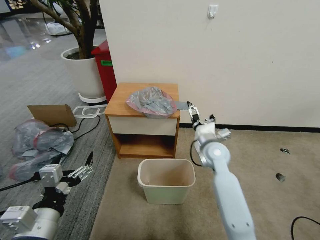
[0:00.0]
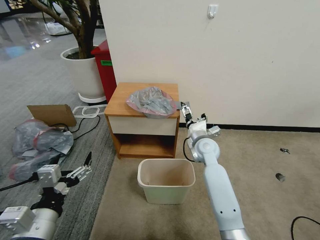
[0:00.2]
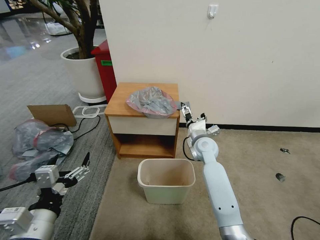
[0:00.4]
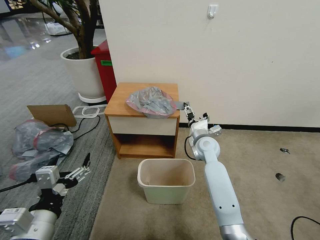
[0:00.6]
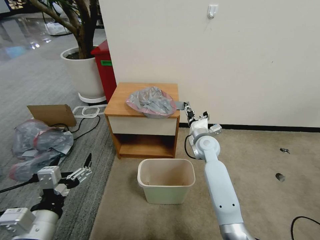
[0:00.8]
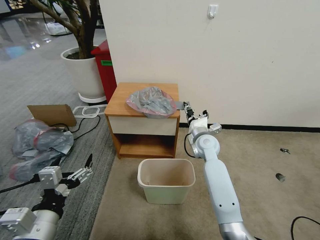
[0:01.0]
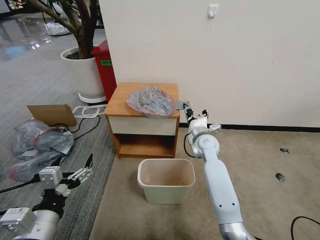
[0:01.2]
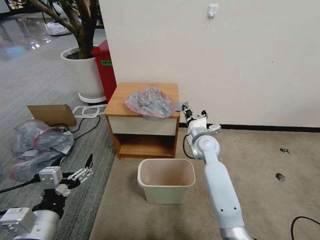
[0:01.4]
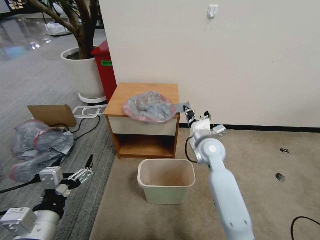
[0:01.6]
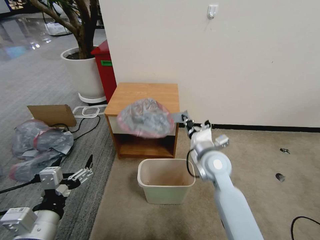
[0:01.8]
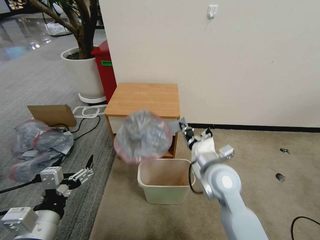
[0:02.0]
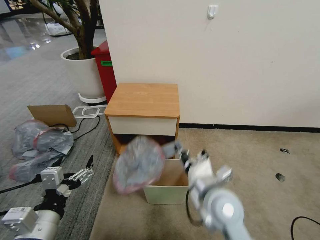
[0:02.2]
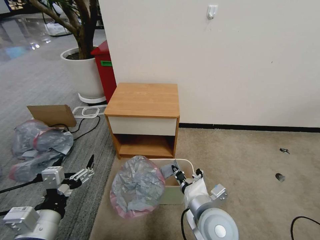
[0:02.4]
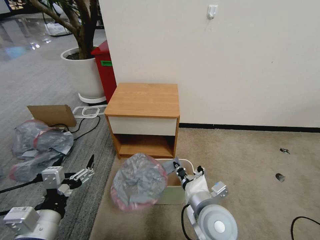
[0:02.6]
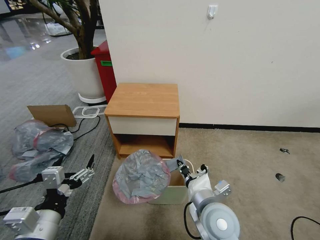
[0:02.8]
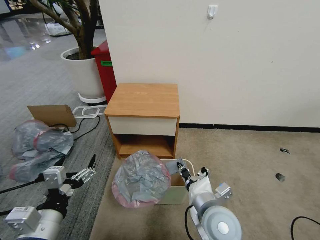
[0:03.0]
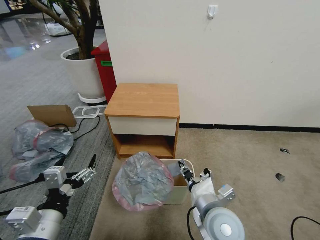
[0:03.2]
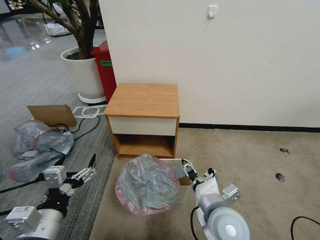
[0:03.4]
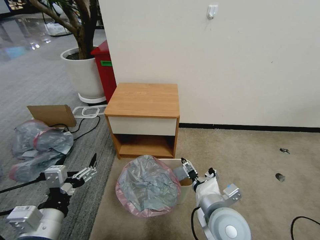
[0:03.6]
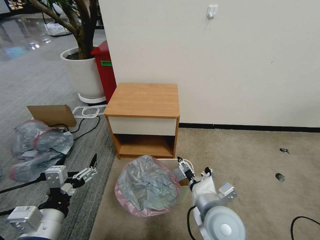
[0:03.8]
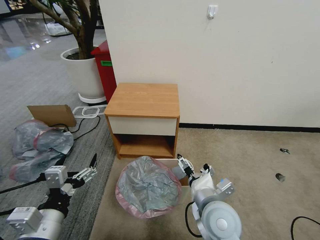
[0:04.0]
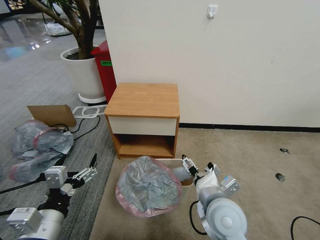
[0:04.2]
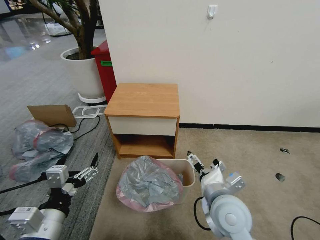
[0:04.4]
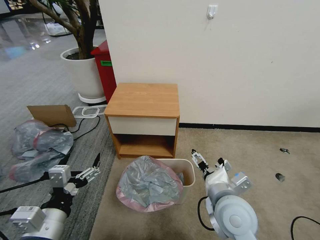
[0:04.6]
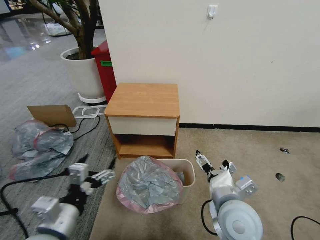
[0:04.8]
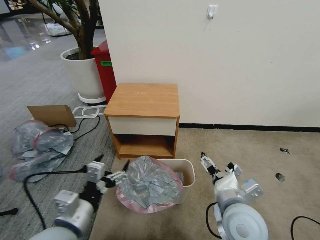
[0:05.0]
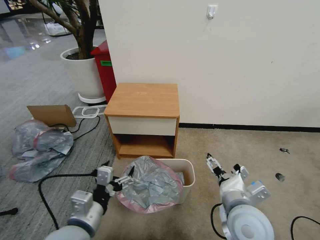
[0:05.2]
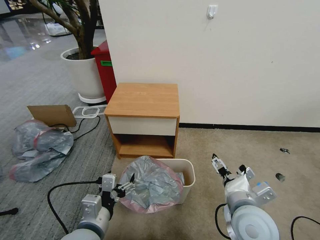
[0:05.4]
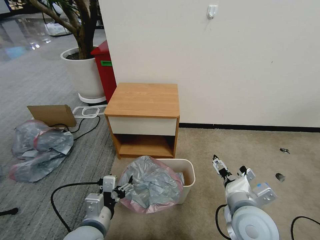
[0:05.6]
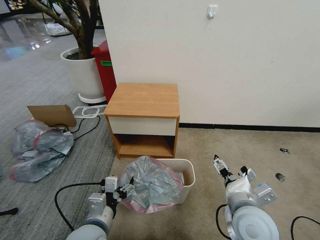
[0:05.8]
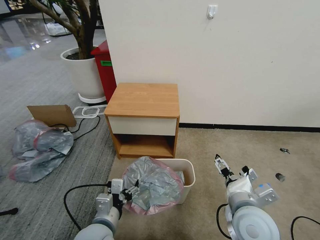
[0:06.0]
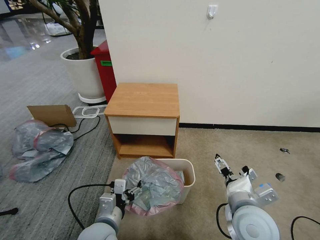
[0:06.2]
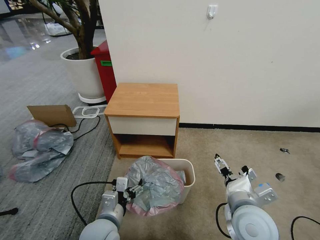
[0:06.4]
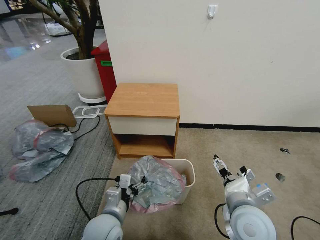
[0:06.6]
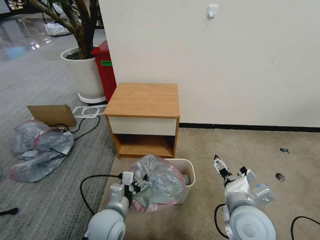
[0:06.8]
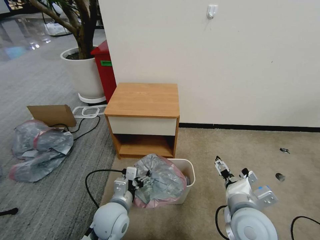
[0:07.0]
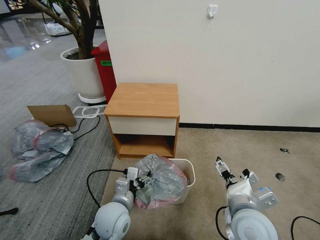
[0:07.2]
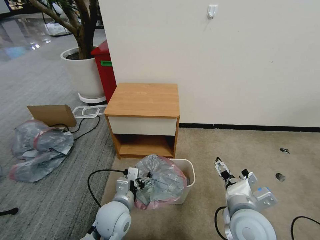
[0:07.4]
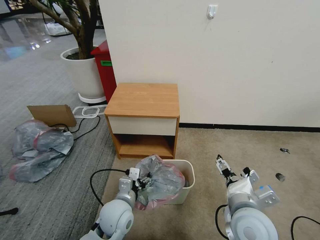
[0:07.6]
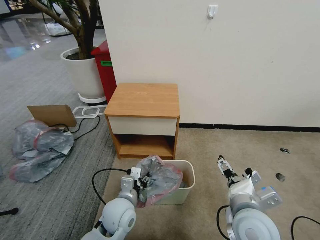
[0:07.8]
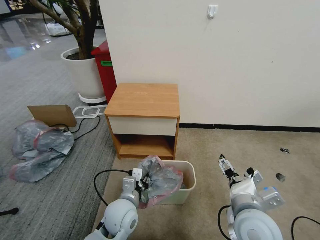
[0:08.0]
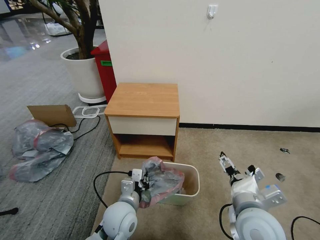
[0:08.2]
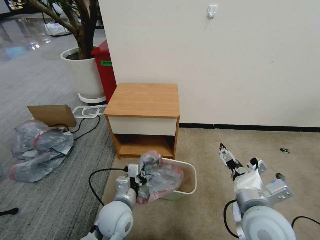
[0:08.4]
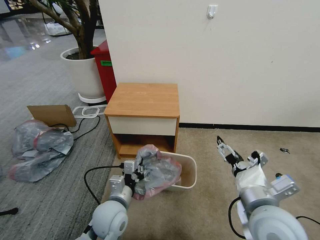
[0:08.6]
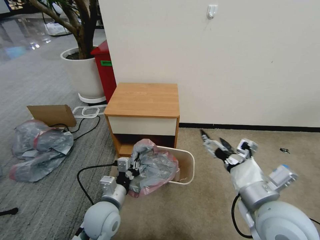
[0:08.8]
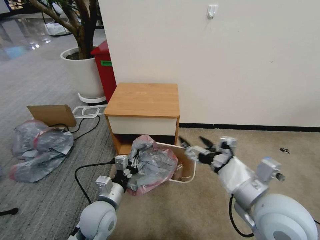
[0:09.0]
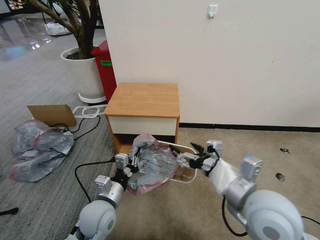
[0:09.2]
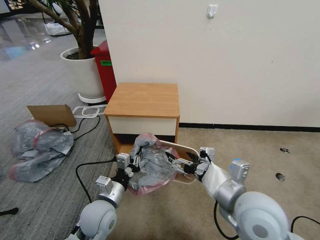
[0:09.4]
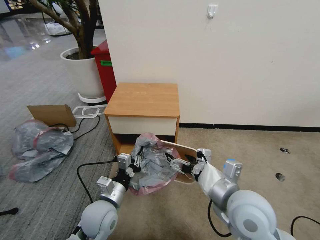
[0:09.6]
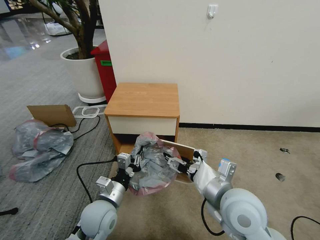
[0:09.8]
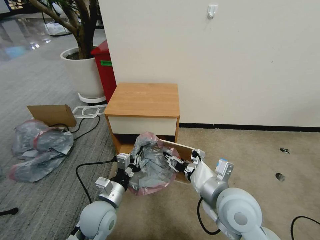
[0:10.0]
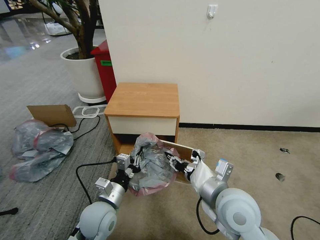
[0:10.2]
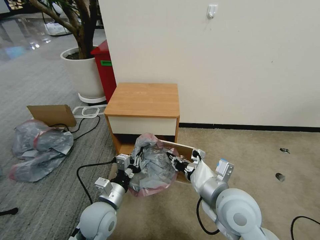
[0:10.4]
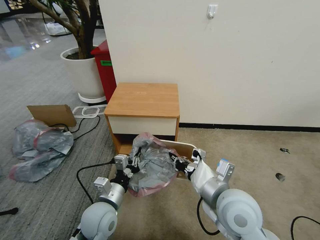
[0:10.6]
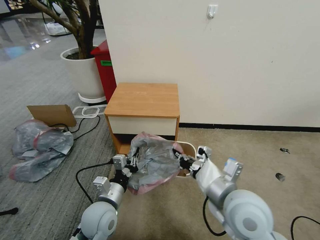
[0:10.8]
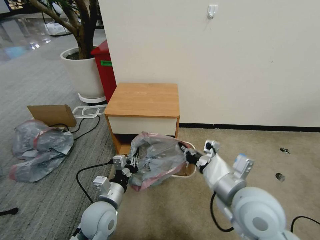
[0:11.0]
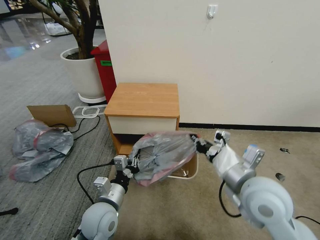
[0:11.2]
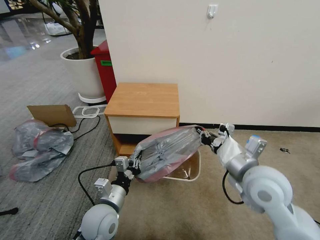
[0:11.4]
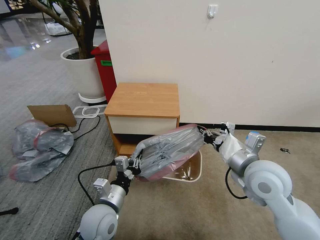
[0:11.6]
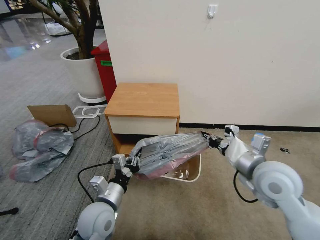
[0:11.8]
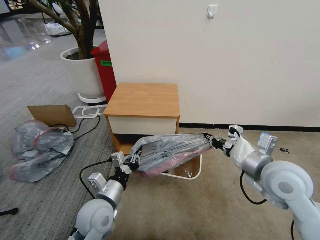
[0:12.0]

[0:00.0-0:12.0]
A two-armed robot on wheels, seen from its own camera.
Task of the whole recording: Pick up the garbage bag from the table and place it over the trash can.
0:00.0 to 0:01.6: The right gripper closes.
0:01.6 to 0:03.0: The right gripper travels backward by some 20 cm.
0:03.0 to 0:04.4: The right gripper opens up.
0:04.4 to 0:06.0: The left gripper shifts approximately 15 cm downward and to the right. Meanwhile the right gripper travels to the right by some 5 cm.
0:06.0 to 0:07.6: The left gripper goes about 5 cm forward.
0:07.6 to 0:09.0: The right gripper is displaced upward by some 10 cm. The left gripper changes place by about 5 cm, and closes up.
0:09.0 to 0:10.4: The right gripper heads to the left and downward, covering some 10 cm, and closes its fingers.
0:10.4 to 0:12.0: The right gripper is displaced to the right and forward by approximately 15 cm.

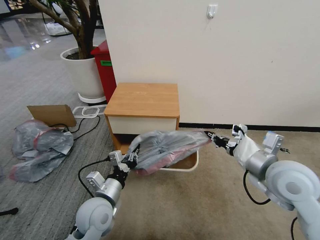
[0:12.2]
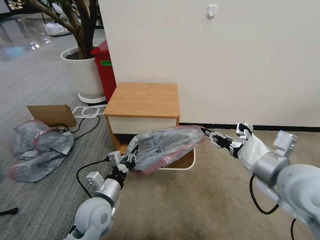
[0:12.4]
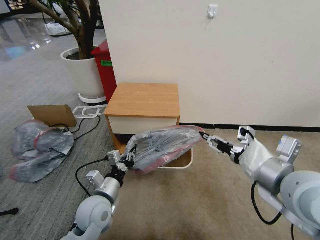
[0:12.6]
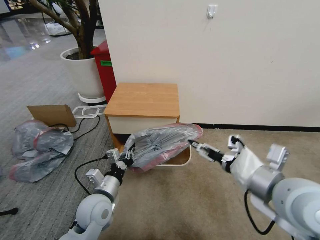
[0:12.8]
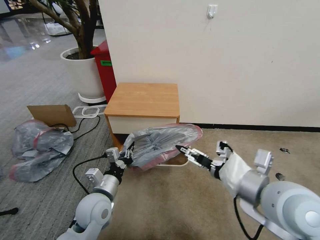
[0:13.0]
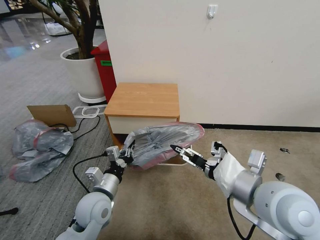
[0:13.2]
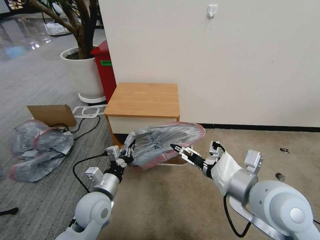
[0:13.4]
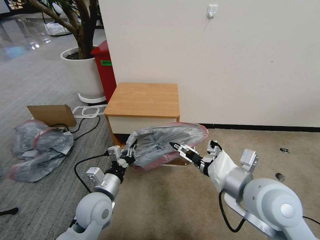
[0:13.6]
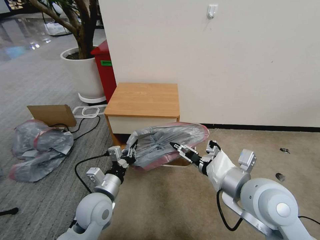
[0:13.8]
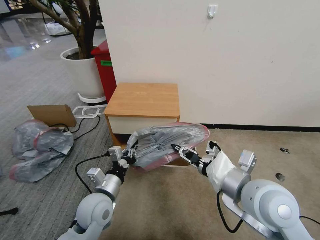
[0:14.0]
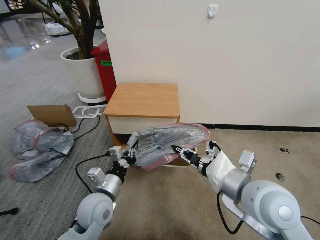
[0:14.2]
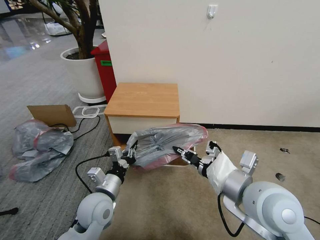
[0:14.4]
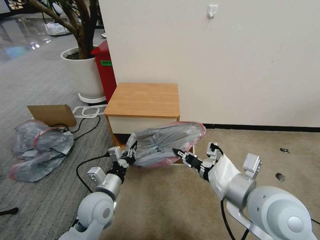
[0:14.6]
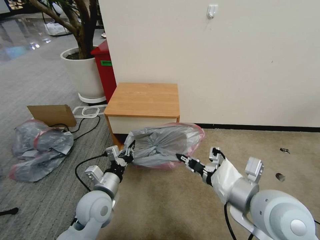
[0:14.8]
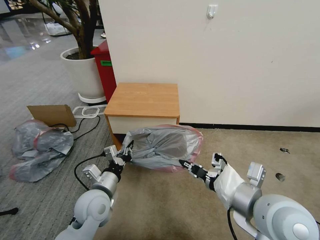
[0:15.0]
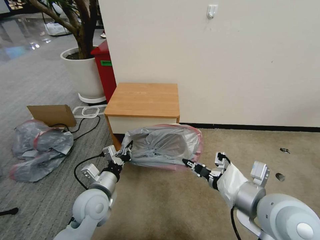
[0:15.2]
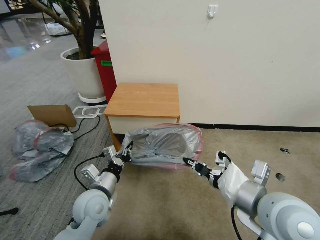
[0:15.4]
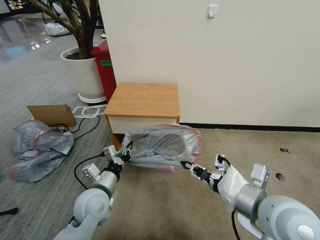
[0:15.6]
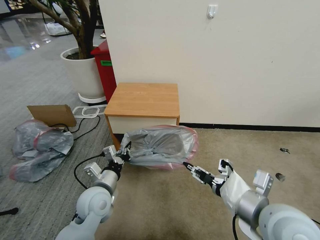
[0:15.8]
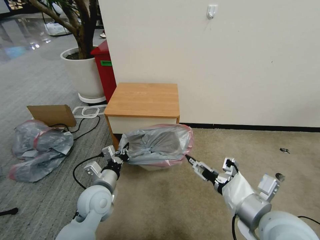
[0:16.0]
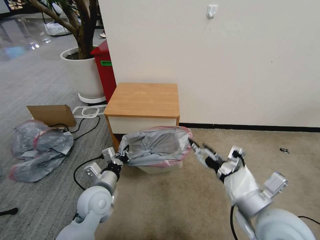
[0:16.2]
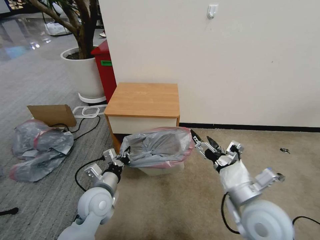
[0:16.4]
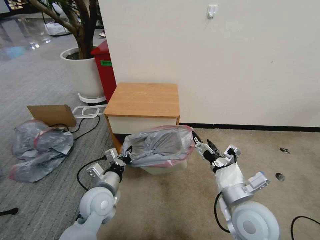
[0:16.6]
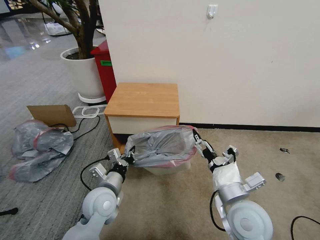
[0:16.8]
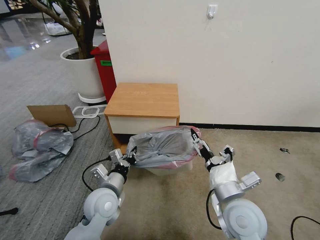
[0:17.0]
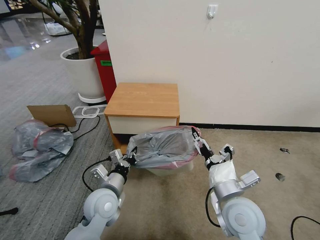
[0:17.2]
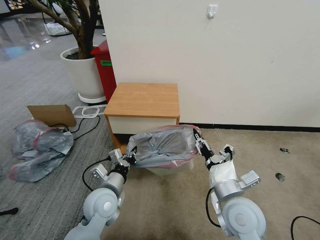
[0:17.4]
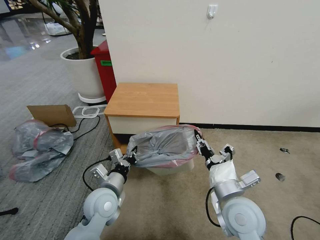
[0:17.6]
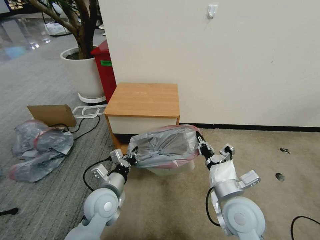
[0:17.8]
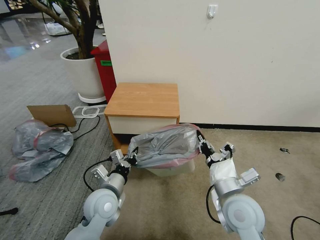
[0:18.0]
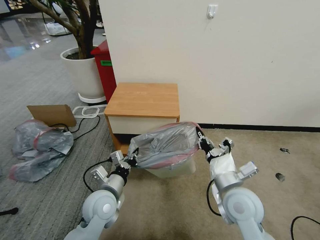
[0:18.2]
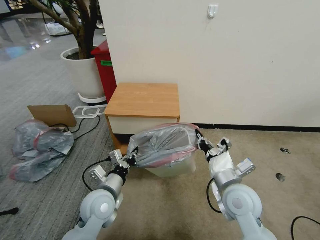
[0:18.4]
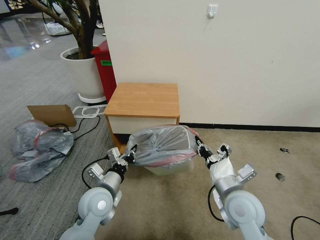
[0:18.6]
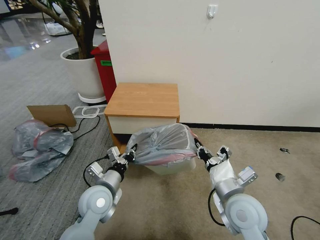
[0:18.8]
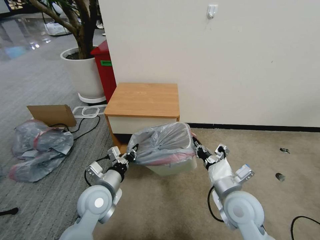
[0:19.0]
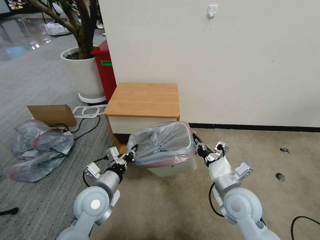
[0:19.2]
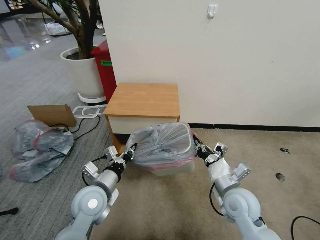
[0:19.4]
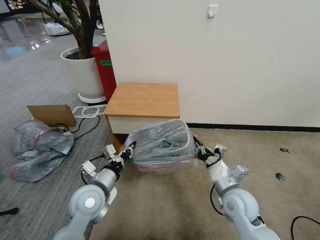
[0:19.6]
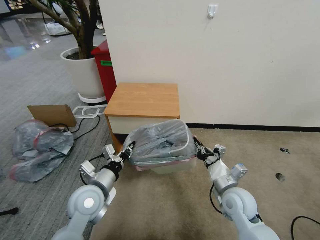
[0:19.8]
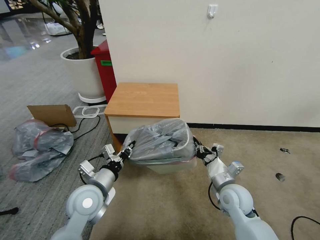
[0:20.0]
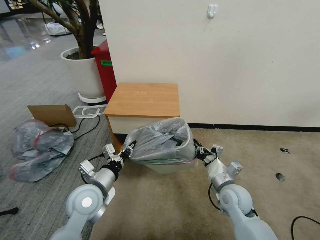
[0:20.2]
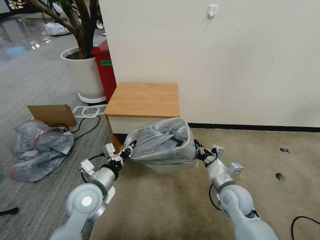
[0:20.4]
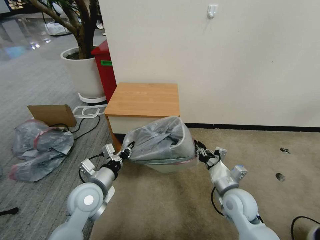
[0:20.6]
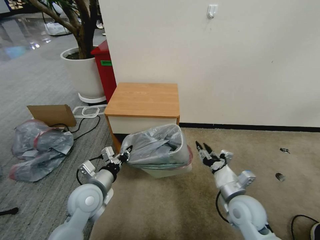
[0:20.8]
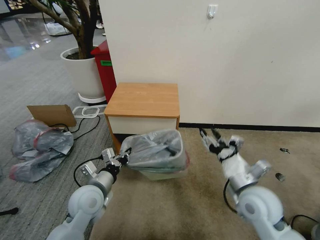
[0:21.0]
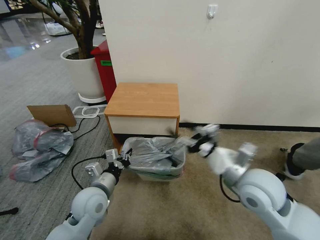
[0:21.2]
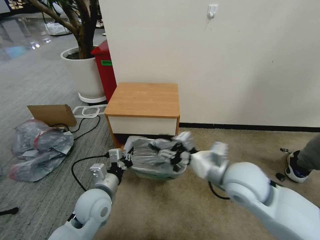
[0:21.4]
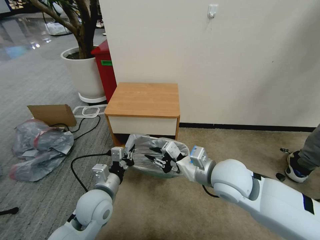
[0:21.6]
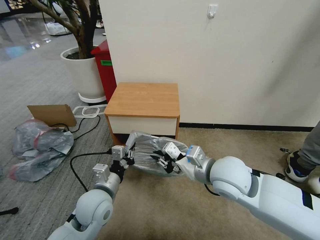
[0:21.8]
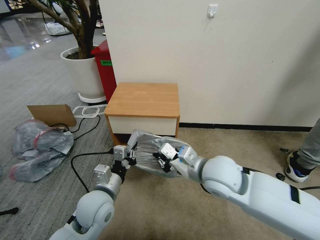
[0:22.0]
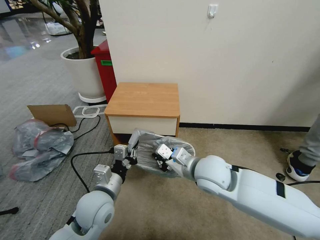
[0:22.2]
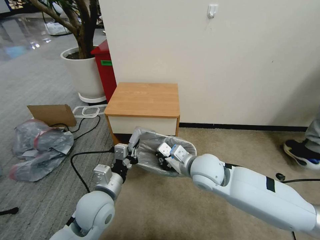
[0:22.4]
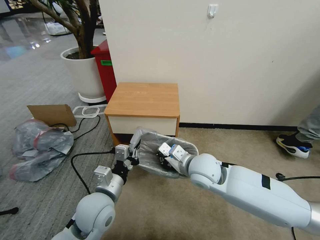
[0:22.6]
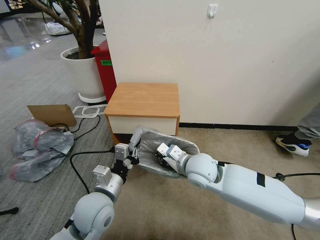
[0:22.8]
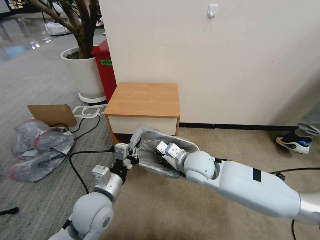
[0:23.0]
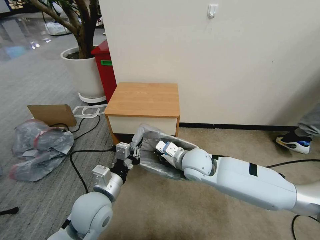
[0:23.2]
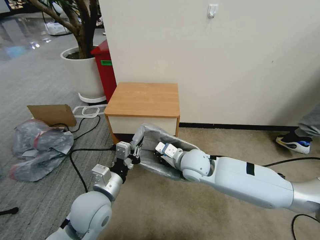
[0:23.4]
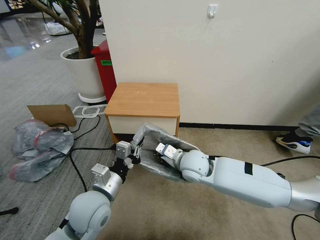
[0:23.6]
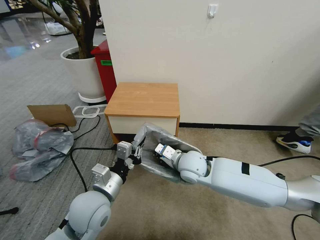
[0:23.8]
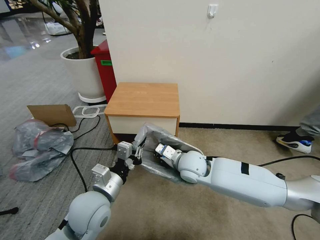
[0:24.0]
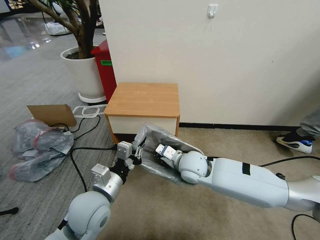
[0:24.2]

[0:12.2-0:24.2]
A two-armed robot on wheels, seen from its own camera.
Task of the whole recording: Pick up the garbage bag from the table and place it over the trash can.
0:12.2 to 0:13.8: The right gripper shifts some 10 cm to the left, and opens up.
0:13.8 to 0:15.2: The right gripper closes up.
0:15.2 to 0:16.6: The right gripper goes roughly 10 cm downward, and opens.
0:16.6 to 0:18.2: The right gripper closes.
0:18.2 to 0:19.8: The right gripper shifts some 10 cm downward.
0:19.8 to 0:21.2: The right gripper moves upward, roughly 15 cm, and opens.
0:21.2 to 0:22.6: The left gripper ends up about 5 cm from where it was. Meanwhile the right gripper shifts some 15 cm to the left and forward, and closes its fingers.
0:22.6 to 0:24.2: The right gripper changes place by about 5 cm.
